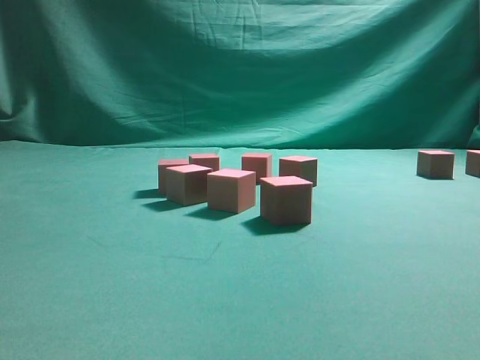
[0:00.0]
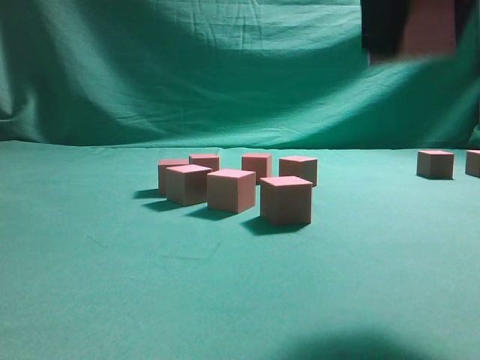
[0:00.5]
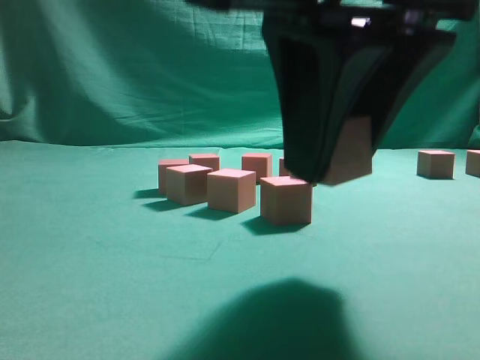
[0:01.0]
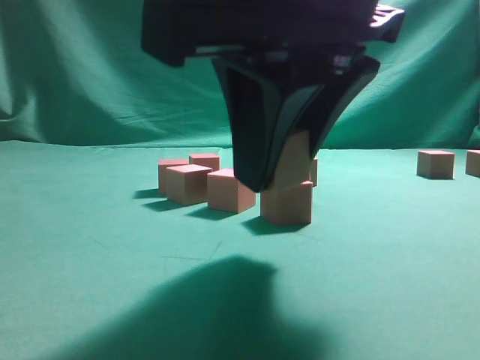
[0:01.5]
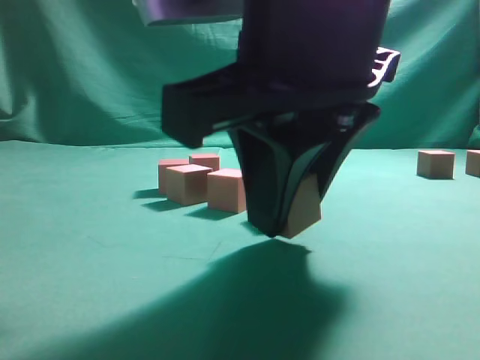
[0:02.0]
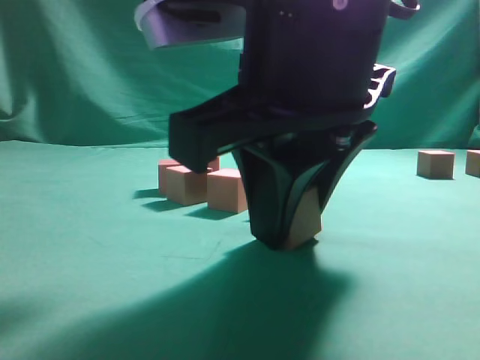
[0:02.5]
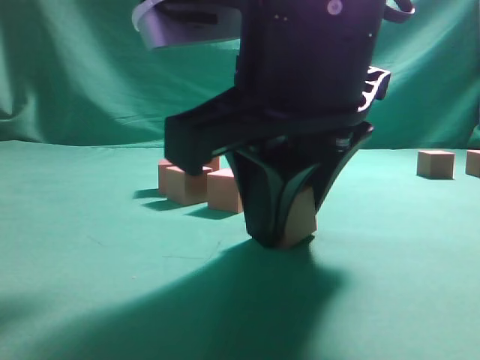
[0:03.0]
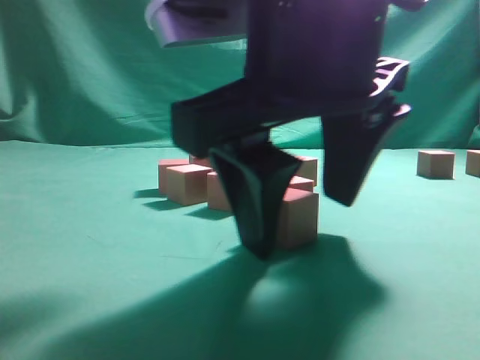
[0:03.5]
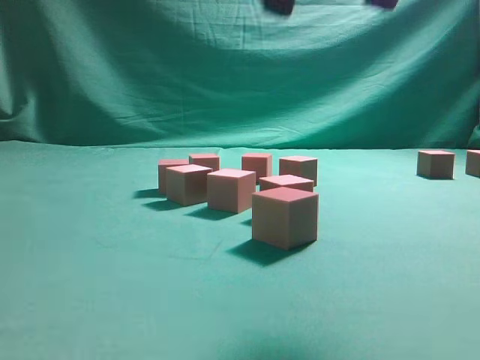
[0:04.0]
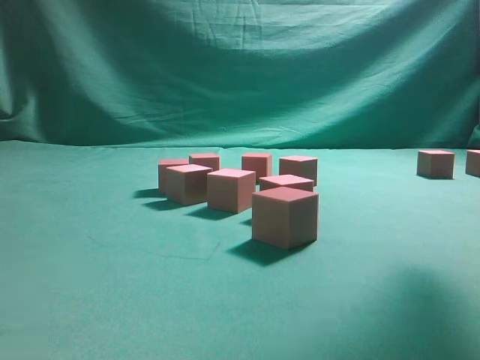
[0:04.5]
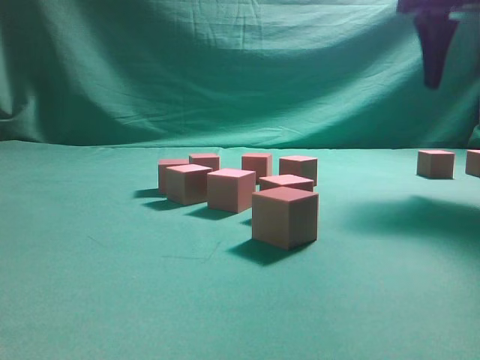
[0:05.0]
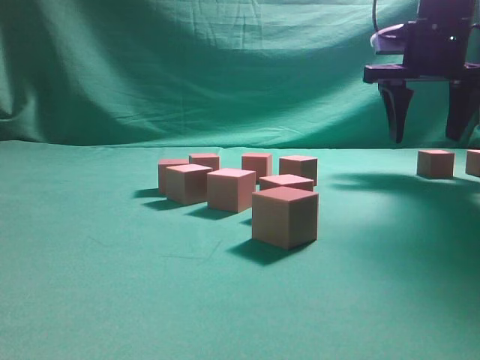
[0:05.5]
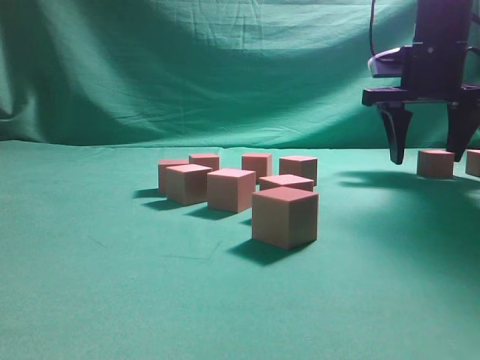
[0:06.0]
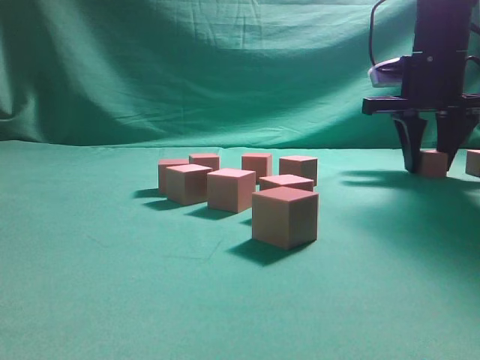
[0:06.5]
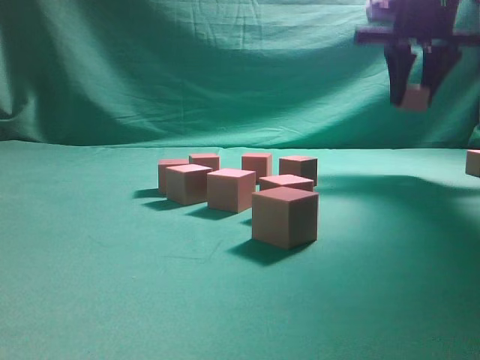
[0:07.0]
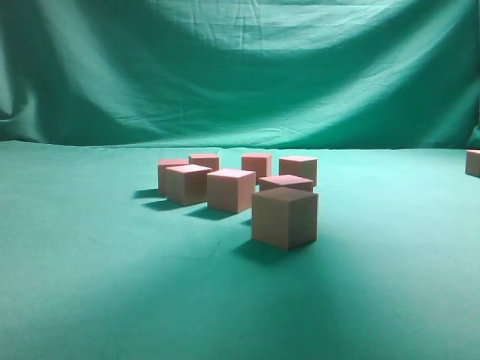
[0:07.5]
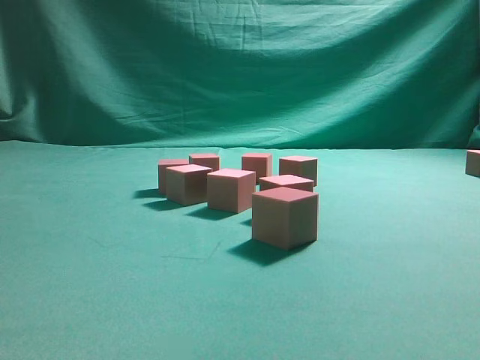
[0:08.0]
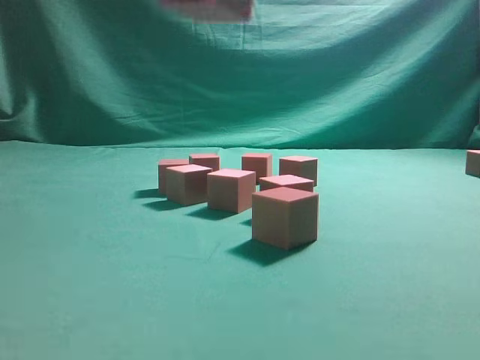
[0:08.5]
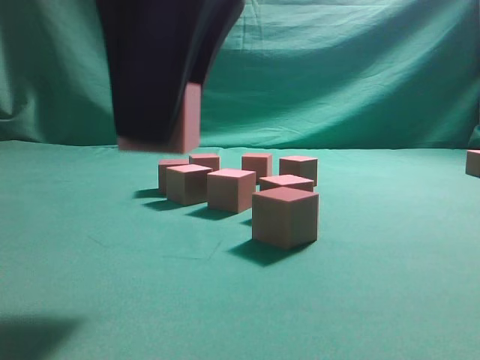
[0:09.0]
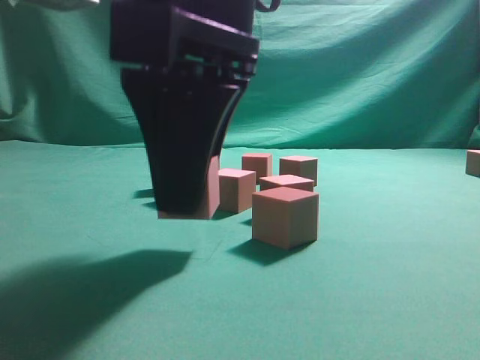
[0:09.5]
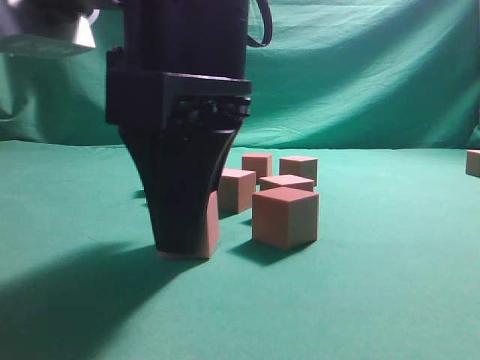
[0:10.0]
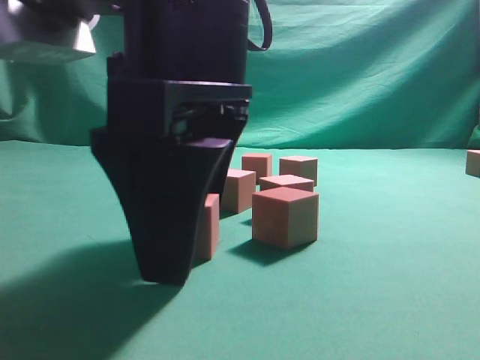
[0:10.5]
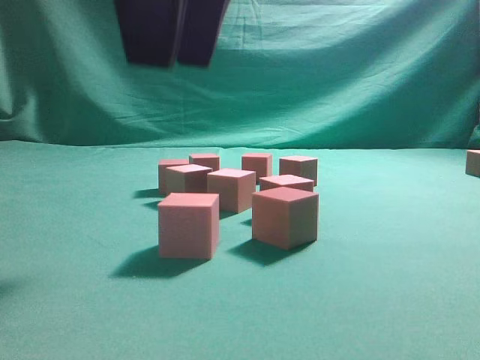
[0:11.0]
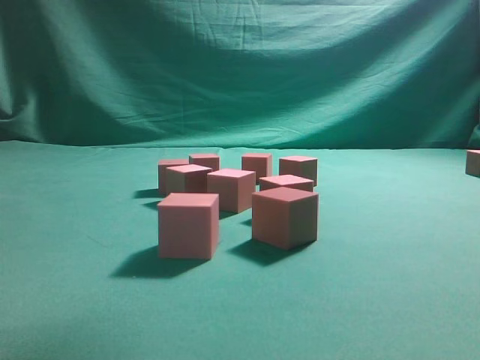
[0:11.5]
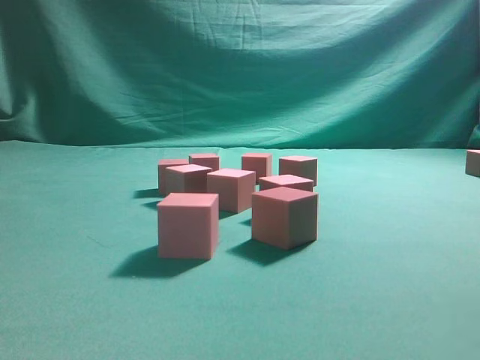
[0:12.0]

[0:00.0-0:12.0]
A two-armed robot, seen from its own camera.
Task of the whole recording: pick up the multiple cubes in two columns one by one and place them in another position on the table.
Step, 0:00.0 to 0:03.5: Place the block at the correct position to assemble the letter S.
Step, 0:04.0 to 0:07.0: Pick up the block on the table.
Step, 0:07.5 to 0:10.5: Place the block at the correct position to assemble the letter S.
0:00.0 to 0:02.0: The right gripper is displaced downward by some 15 cm.
0:02.0 to 0:04.0: The right gripper moves upward, some 10 cm, and opens its fingers.
0:04.0 to 0:06.0: The right gripper is displaced forward and to the right by approximately 30 cm.
0:06.0 to 0:08.0: The right gripper travels backward, upward and to the left by some 30 cm, and closes up.
0:08.0 to 0:10.0: The right gripper is displaced downward and to the left by approximately 20 cm.
0:10.0 to 0:12.0: The right gripper goes about 35 cm to the right, upward and forward, and opens its fingers.

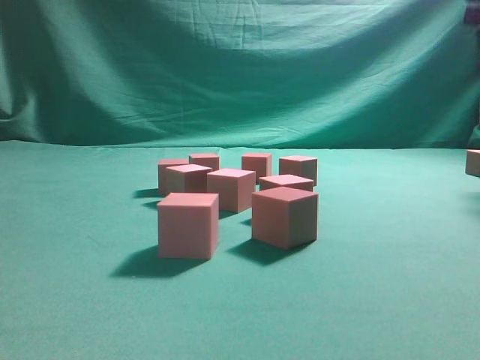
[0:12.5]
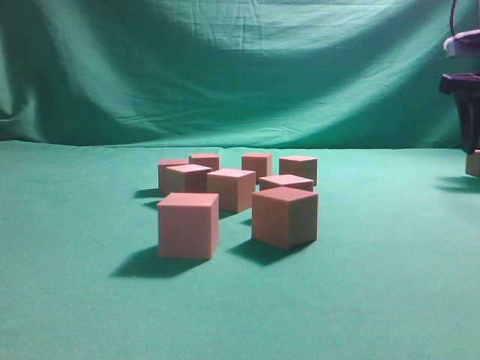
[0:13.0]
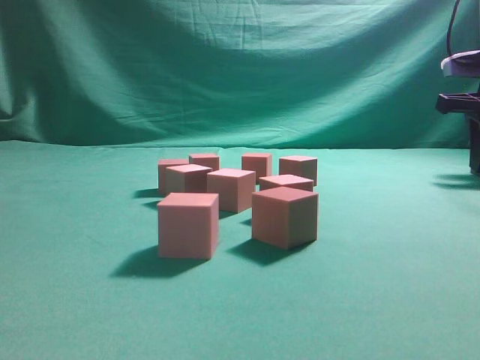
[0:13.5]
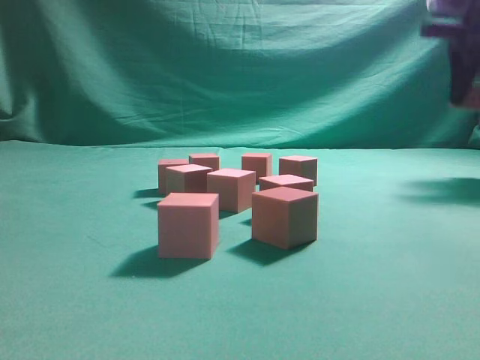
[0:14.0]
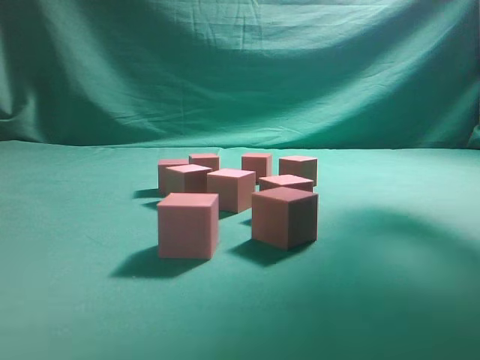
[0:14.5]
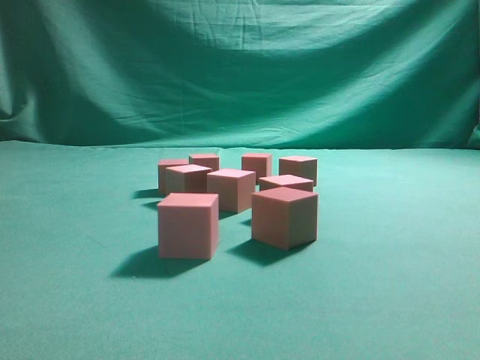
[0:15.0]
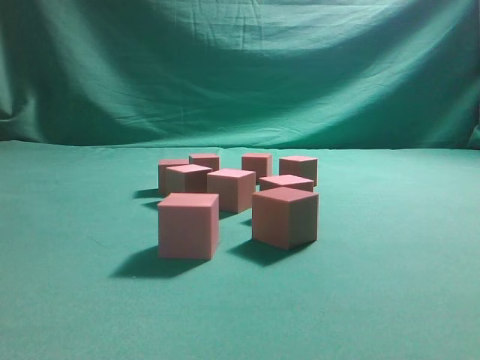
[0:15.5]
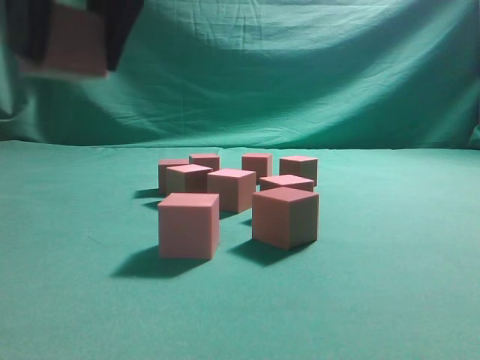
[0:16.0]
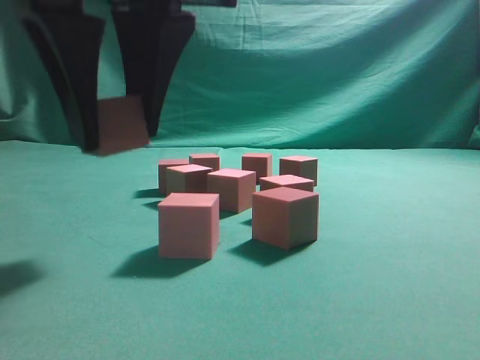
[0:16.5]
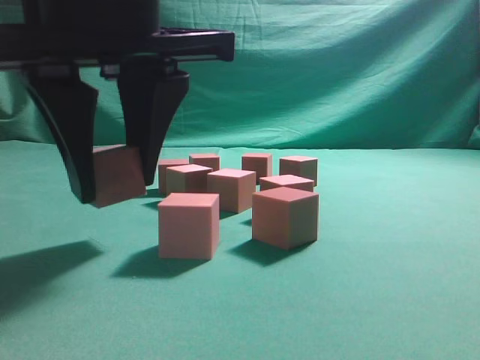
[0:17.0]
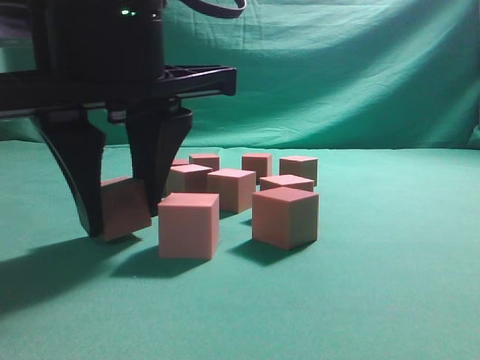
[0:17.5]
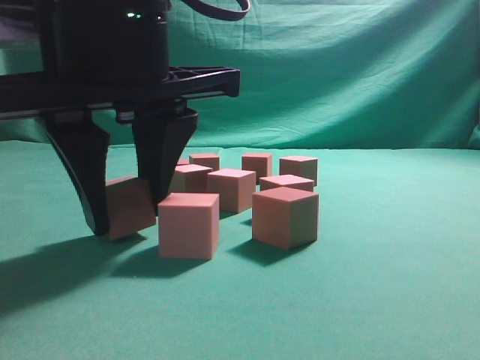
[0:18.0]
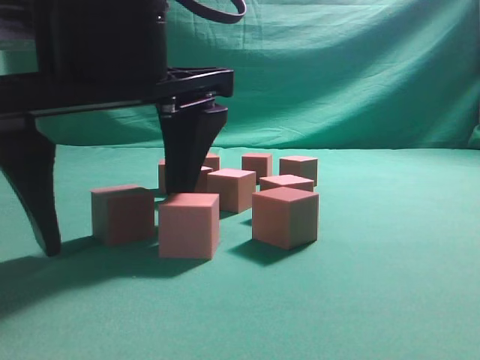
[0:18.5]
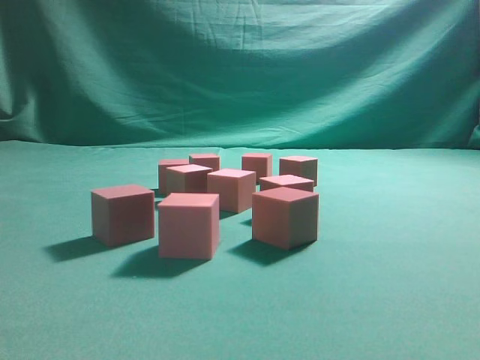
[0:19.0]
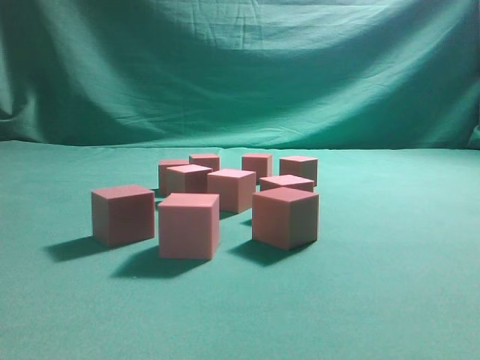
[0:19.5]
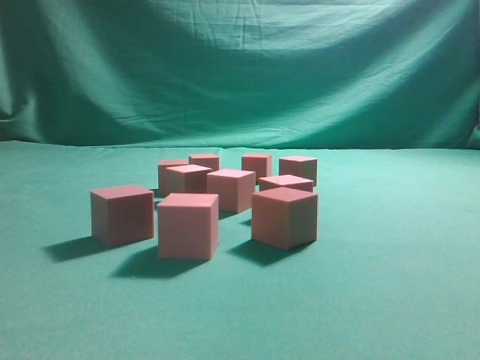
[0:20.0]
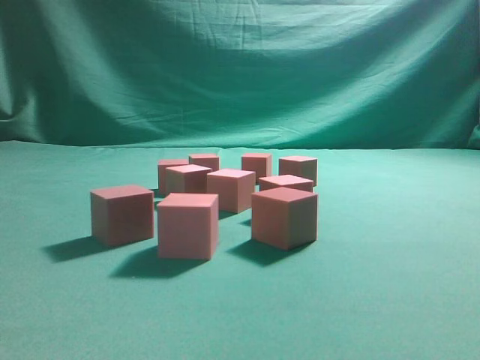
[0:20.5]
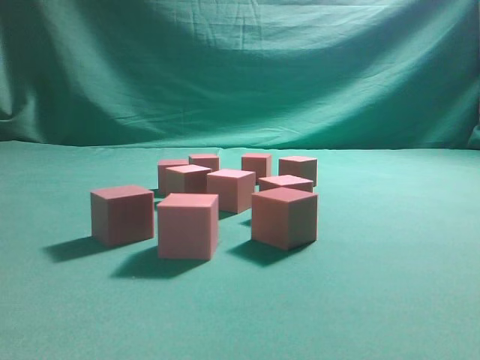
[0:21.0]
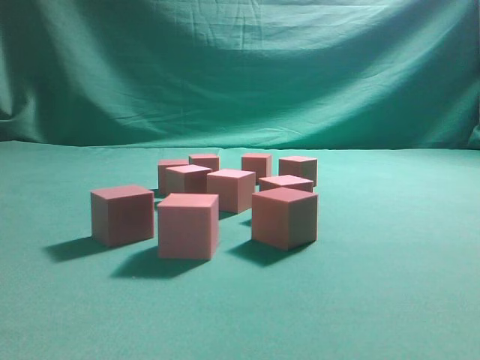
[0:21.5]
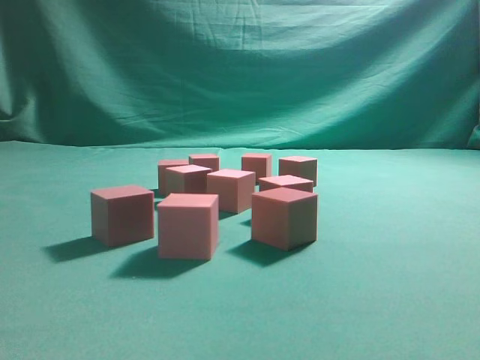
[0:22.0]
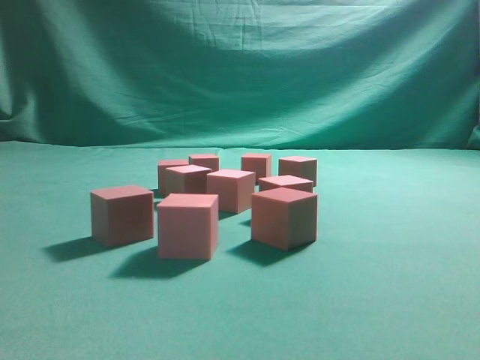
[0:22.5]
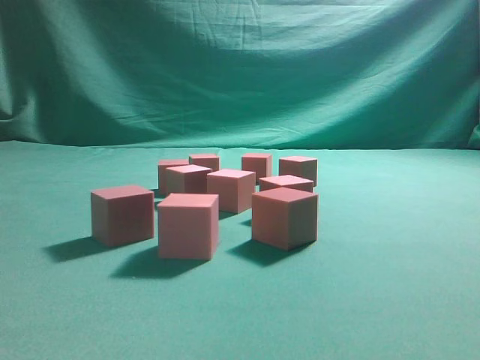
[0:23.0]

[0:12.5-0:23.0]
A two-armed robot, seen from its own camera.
Task of the whole recording: pick up the multiple cubes in two columns one by one and place them in another position on the table.
Step, 0:14.5 to 0:18.5: Place the block at the correct position to assemble the letter S.
0:12.5 to 0:14.5: The right gripper is displaced upward and to the left by some 15 cm, and closes its fingers.
0:14.5 to 0:16.5: The right gripper is displaced to the left, backward and downward by roughly 40 cm.
0:16.5 to 0:19.0: The right gripper moves upward, some 10 cm, and opens, then closes again.

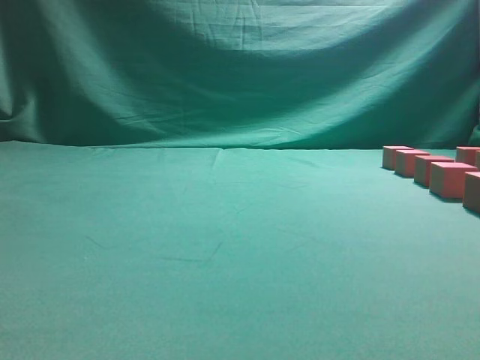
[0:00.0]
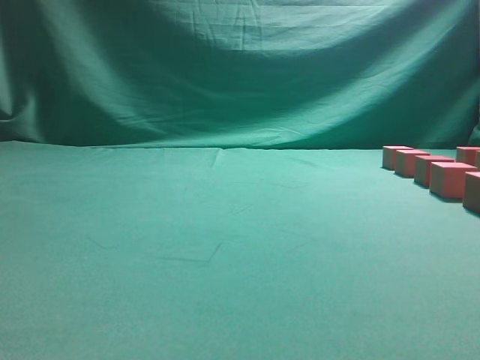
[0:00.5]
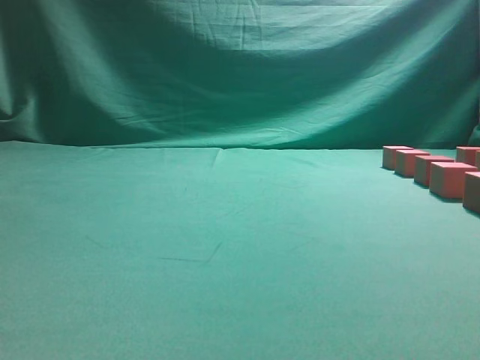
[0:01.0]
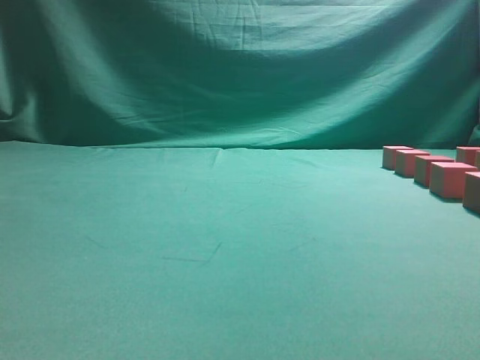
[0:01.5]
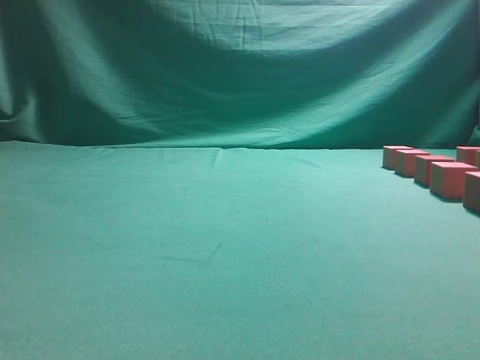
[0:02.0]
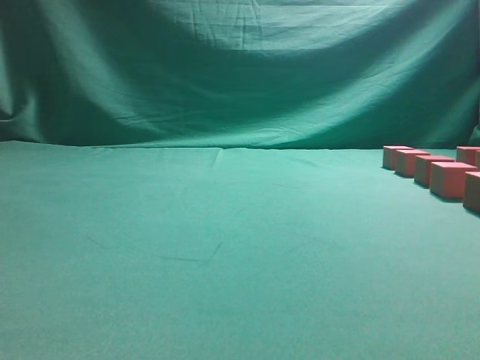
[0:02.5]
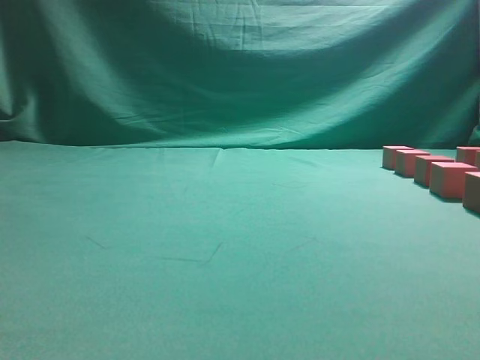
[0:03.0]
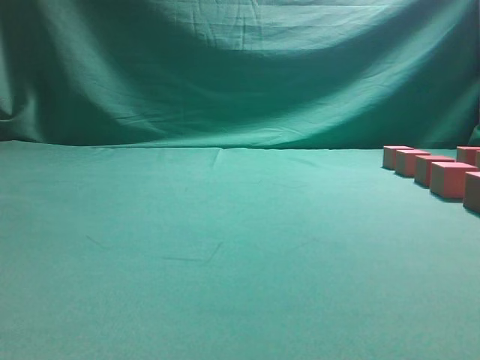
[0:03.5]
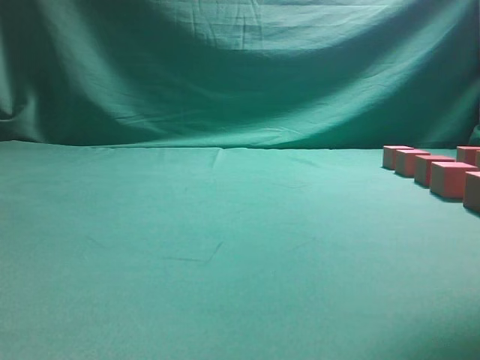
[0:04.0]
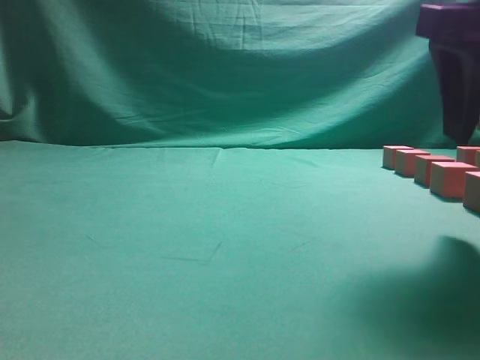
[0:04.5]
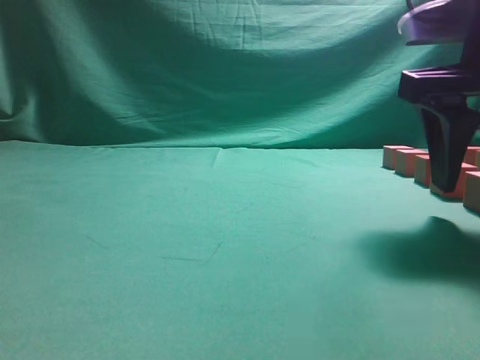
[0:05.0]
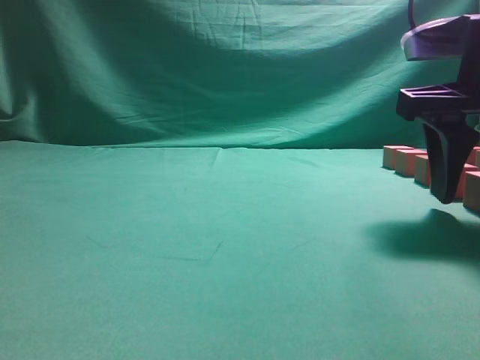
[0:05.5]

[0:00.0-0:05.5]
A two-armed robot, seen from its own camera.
Task of the whole recording: pick up the multiple cubes in two columns one by one and place them in another position on the table.
0:03.5 to 0:05.5: The right gripper travels downward and forward by roughly 15 cm, and opens up.
